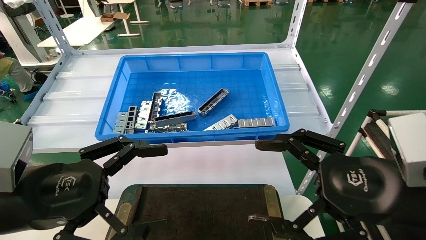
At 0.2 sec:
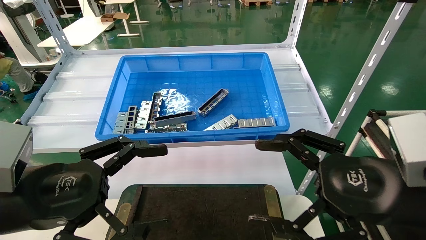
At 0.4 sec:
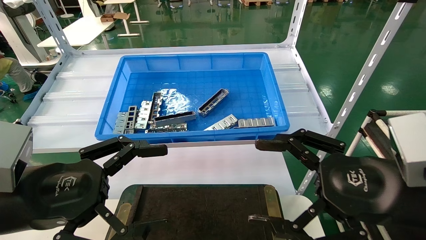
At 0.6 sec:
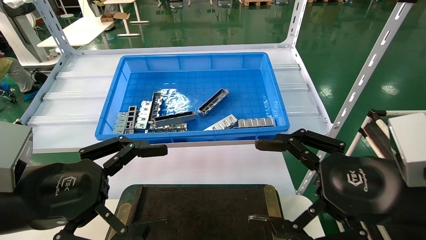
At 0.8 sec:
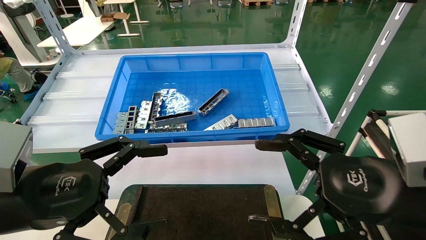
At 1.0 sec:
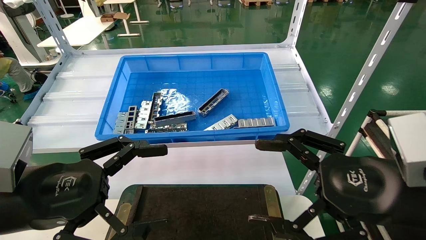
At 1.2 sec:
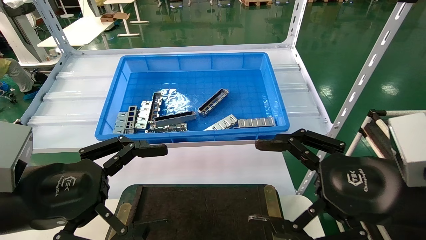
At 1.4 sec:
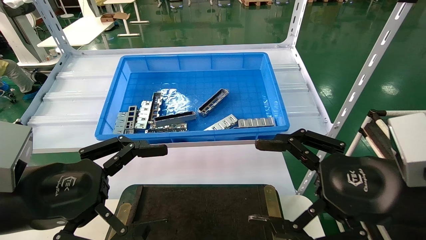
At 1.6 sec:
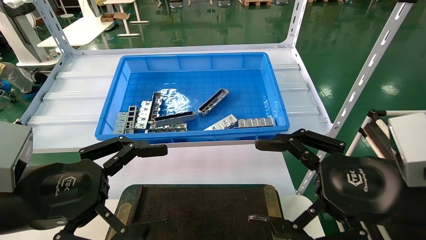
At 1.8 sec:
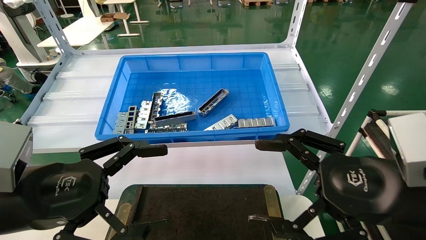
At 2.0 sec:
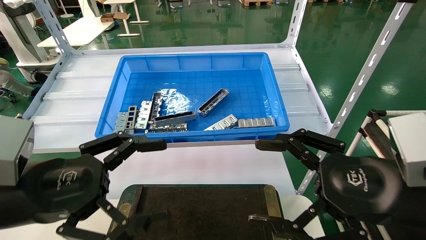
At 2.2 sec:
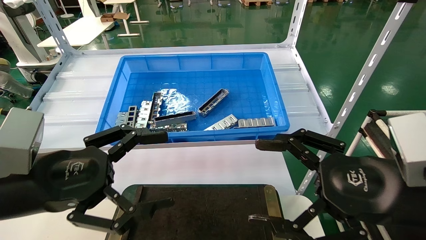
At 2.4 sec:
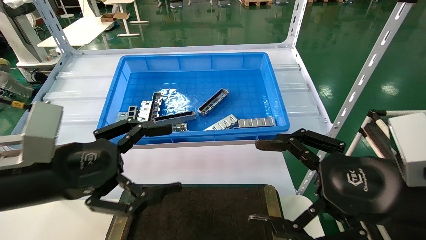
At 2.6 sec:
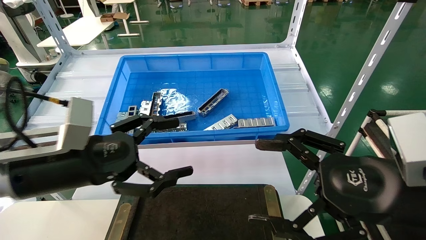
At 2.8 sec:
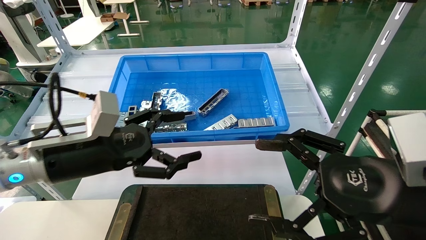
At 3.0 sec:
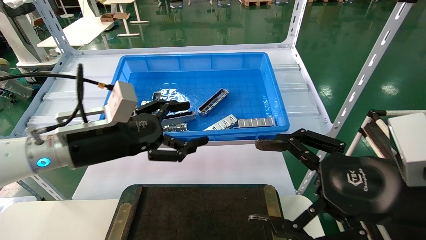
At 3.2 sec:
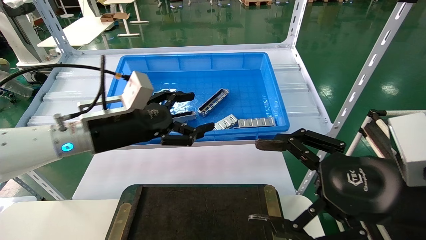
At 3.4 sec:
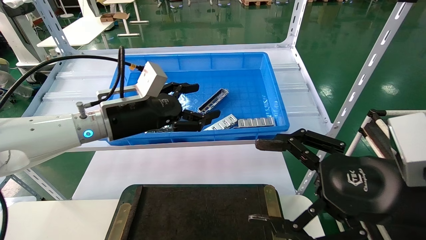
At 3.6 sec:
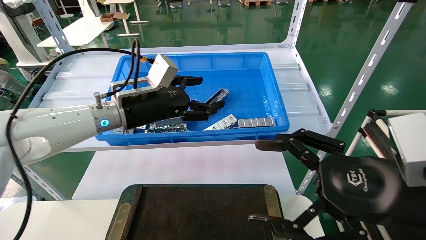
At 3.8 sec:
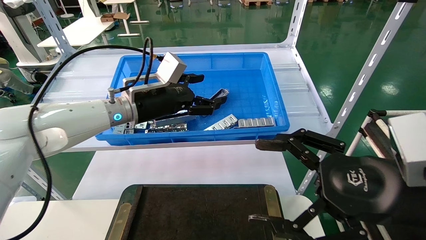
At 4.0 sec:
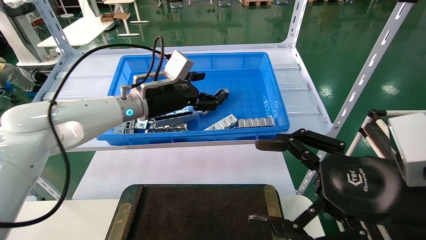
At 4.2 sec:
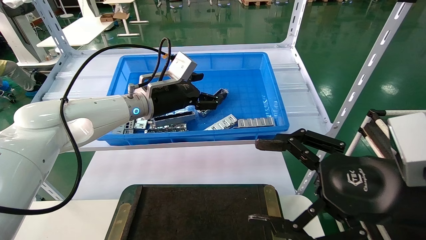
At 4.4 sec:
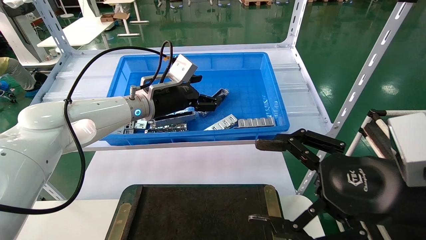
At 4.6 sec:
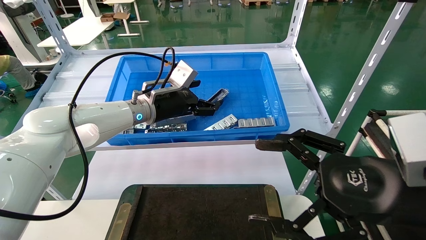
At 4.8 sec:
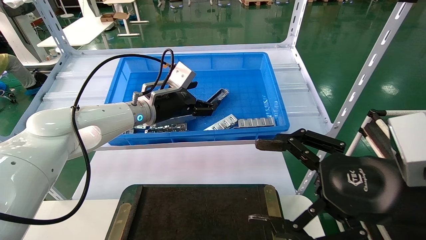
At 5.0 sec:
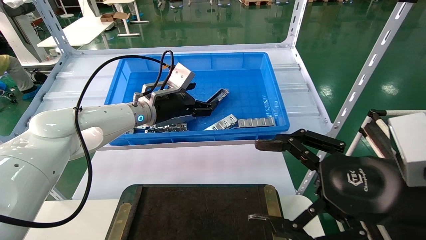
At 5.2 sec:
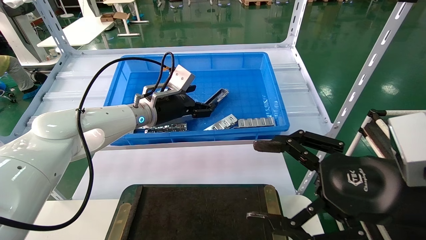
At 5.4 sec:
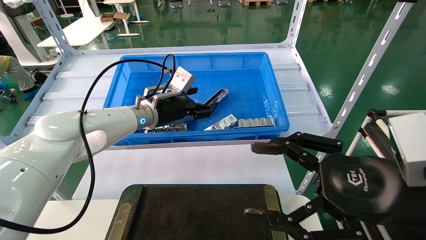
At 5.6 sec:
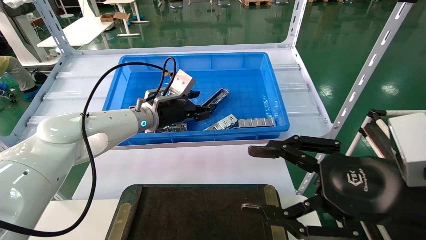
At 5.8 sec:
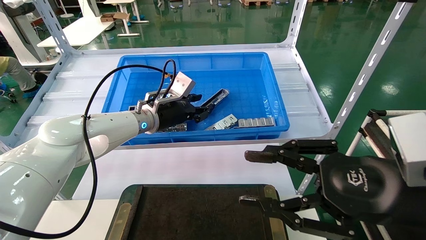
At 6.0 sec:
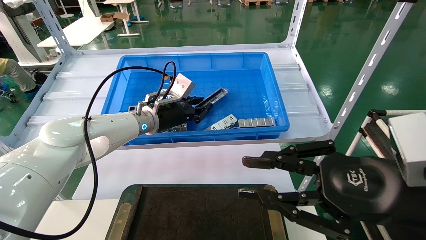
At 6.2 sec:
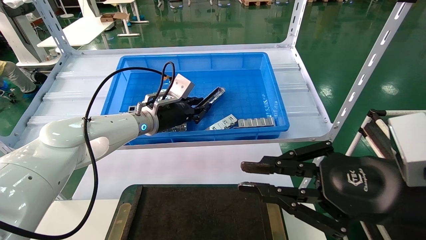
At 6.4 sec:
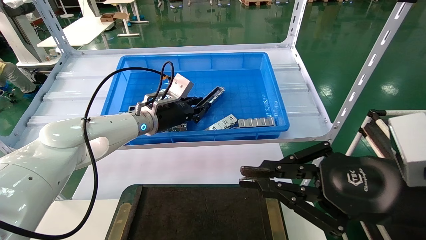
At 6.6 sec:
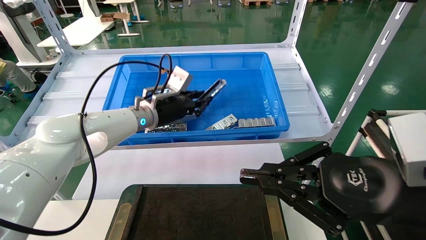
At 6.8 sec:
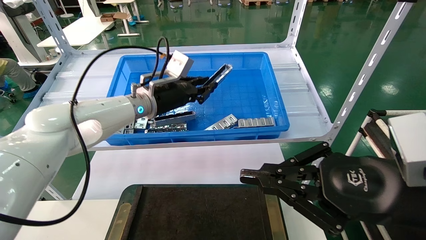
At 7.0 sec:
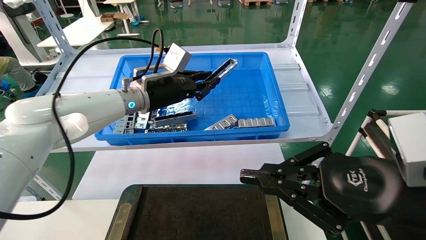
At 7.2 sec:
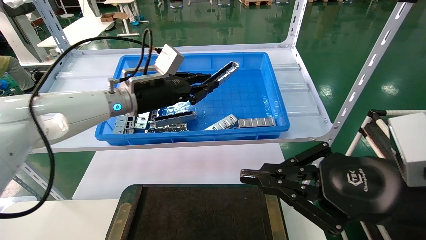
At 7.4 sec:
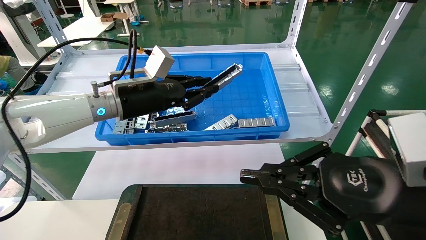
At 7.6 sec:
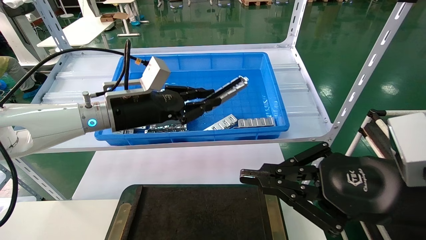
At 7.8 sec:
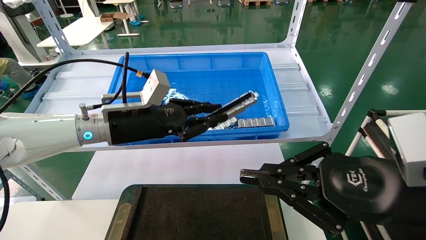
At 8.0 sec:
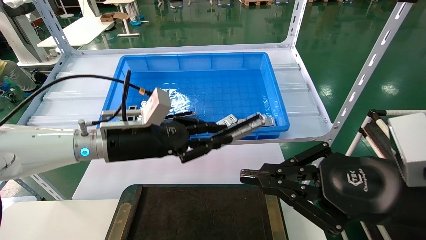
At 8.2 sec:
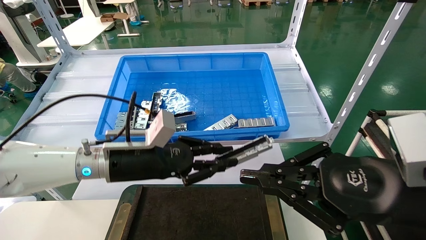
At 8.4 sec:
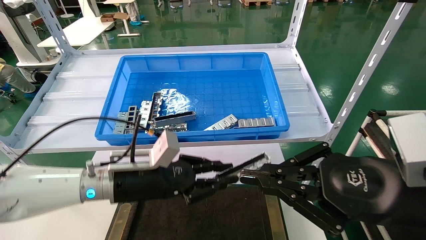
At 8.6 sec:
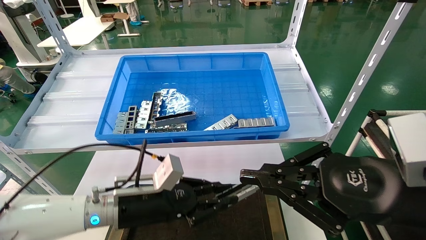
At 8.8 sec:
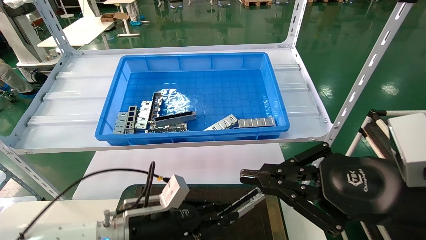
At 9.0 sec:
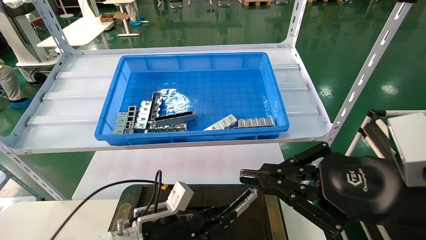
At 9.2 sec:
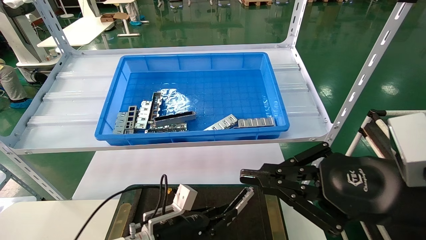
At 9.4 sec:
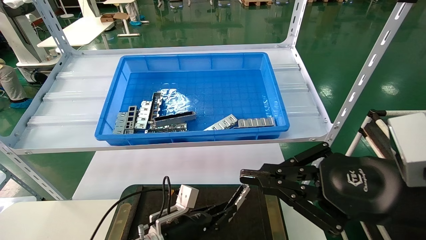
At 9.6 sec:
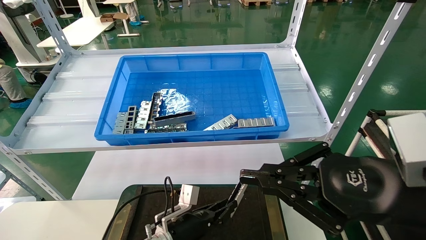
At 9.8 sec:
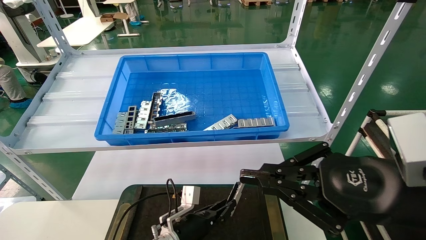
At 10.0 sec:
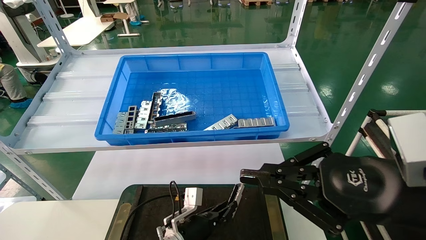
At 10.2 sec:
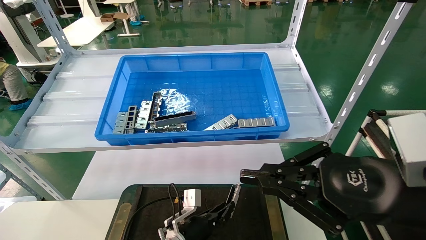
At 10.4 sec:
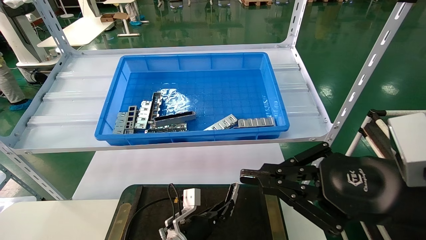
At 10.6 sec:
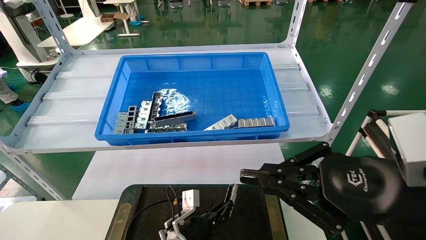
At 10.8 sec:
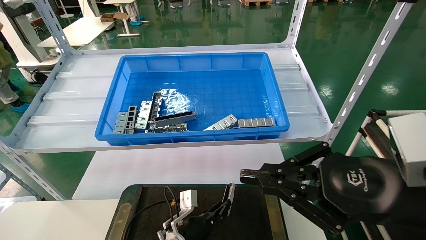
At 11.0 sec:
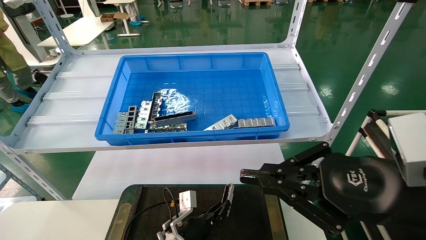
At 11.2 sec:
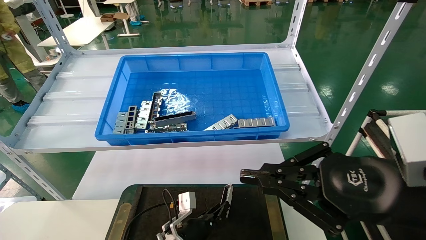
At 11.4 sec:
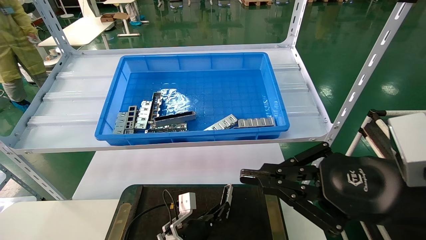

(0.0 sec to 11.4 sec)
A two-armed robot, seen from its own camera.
Task of the whole recording: Grasp the part with one hand and place it on the black container.
Step, 2.4 sec - 6.0 sec: Pick up the front USB bracket from the feeding area.
0.0 sec - 1.4 sec: Neither gripper changes place.
1.4 sec - 2.8 sec: The left gripper is displaced forward by approximately 10 cm.
2.8 sec - 4.2 sec: The left gripper moves forward and to the right, roughly 20 cm.
4.2 sec - 5.6 sec: The grippers make only small movements.
5.6 sec - 7.2 sec: The left gripper moves some 5 cm, and closes. Meanwhile the right gripper closes.
7.2 sec - 8.6 sec: The left gripper is displaced downward and backward by some 20 cm.
8.6 sec - 10.0 sec: The left gripper moves downward and to the right, roughly 20 cm.
10.0 sec - 11.4 sec: The grippers make only small movements.

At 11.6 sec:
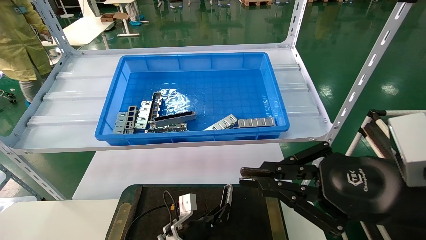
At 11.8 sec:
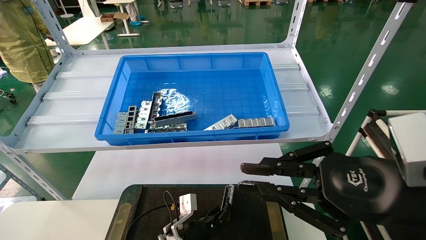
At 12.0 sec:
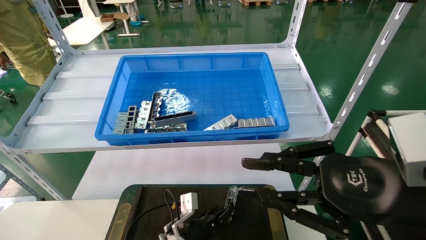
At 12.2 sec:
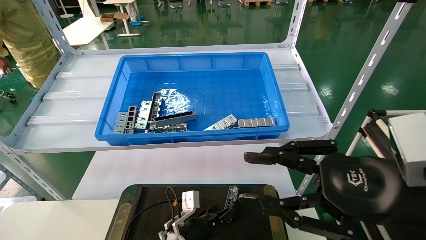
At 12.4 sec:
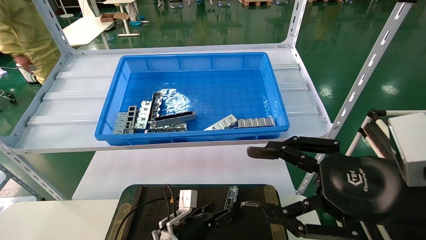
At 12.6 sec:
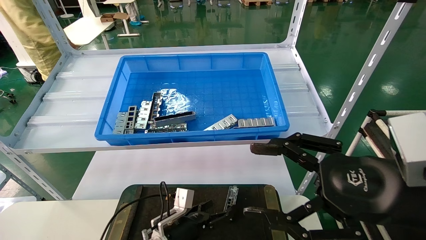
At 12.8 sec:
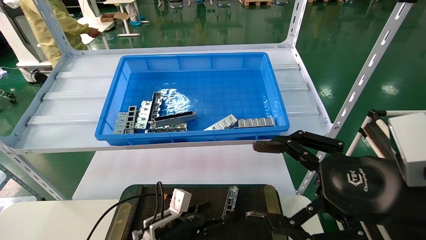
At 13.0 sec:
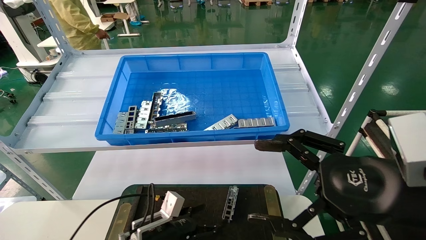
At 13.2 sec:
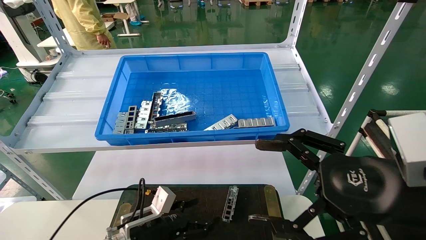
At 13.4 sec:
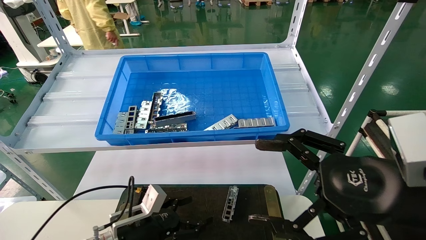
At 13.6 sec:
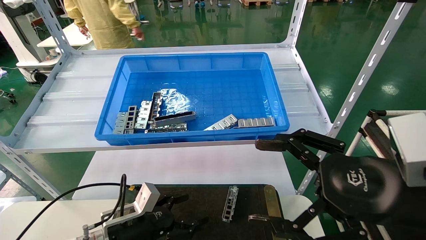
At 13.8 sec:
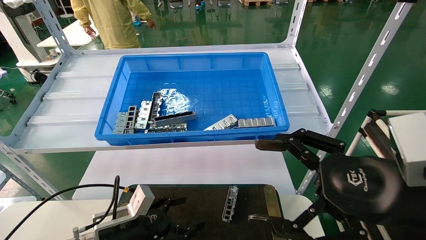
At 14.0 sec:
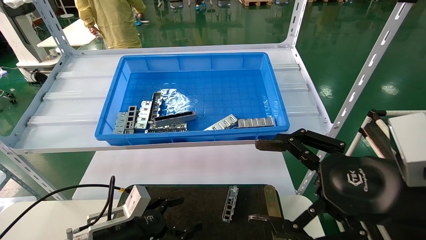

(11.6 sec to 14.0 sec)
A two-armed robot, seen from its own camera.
Task of the whole recording: Grasp the part with one hand and place it on the black container.
11.6 sec - 12.8 sec: The right gripper opens. The left gripper heads to the left, covering roughly 5 cm, and opens its fingers.
12.8 sec - 14.0 sec: The left gripper goes approximately 10 cm to the left and upward.
